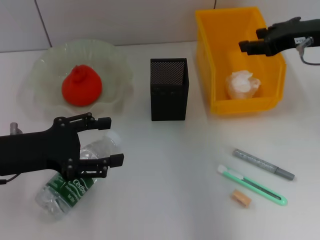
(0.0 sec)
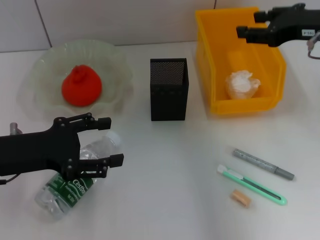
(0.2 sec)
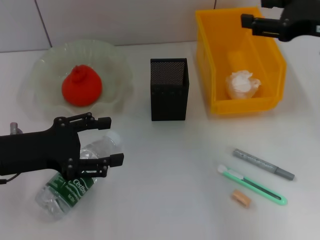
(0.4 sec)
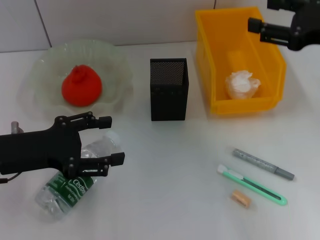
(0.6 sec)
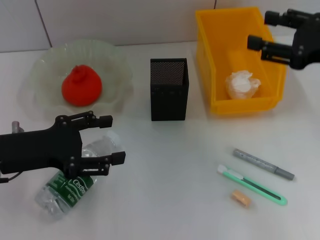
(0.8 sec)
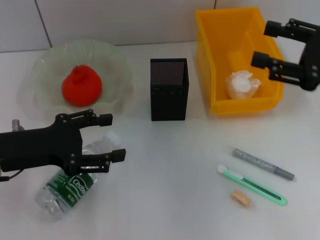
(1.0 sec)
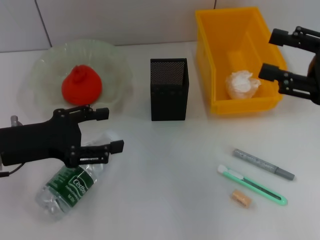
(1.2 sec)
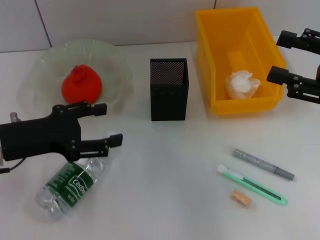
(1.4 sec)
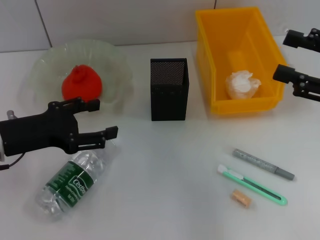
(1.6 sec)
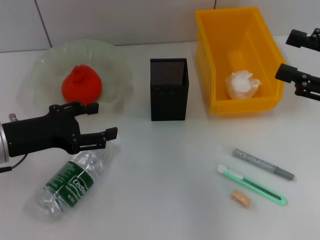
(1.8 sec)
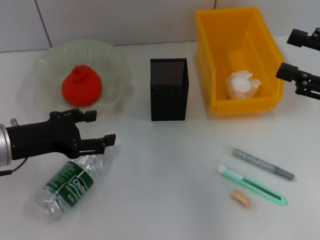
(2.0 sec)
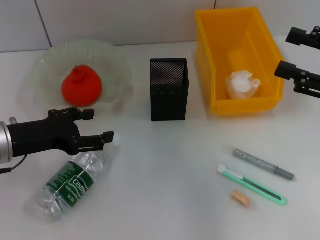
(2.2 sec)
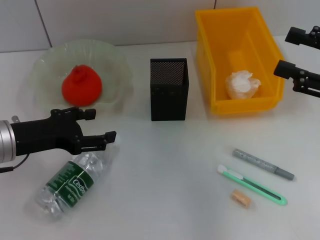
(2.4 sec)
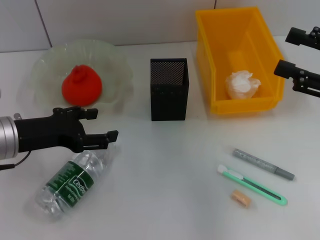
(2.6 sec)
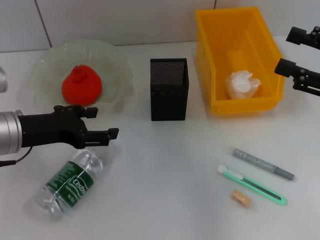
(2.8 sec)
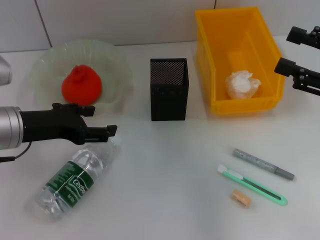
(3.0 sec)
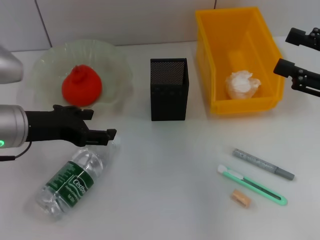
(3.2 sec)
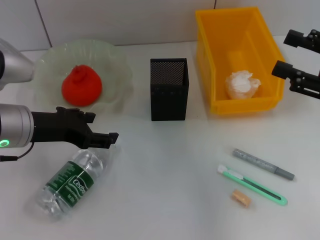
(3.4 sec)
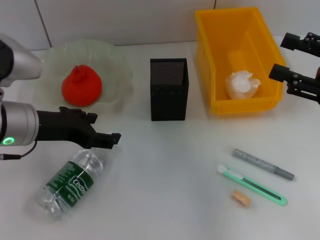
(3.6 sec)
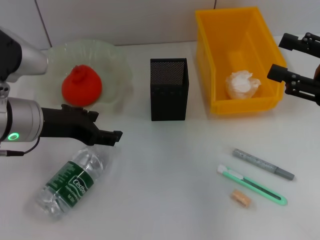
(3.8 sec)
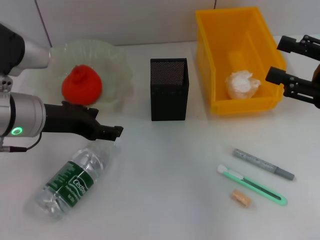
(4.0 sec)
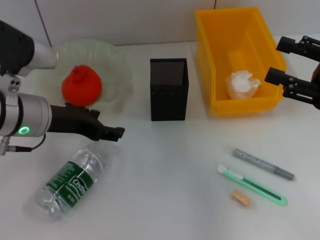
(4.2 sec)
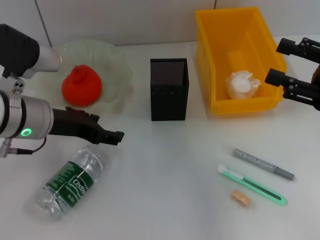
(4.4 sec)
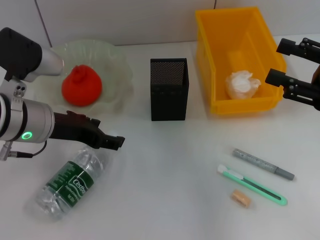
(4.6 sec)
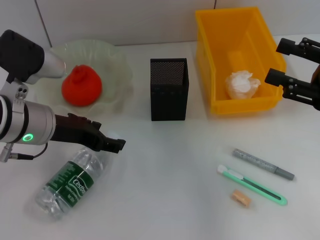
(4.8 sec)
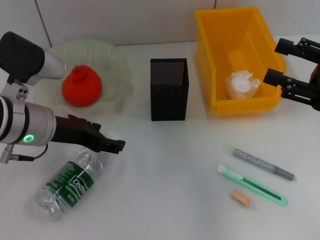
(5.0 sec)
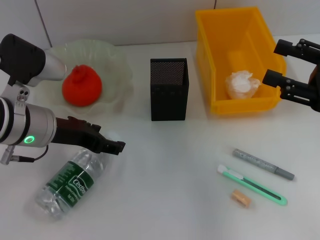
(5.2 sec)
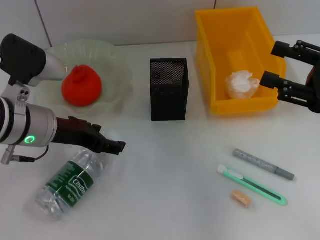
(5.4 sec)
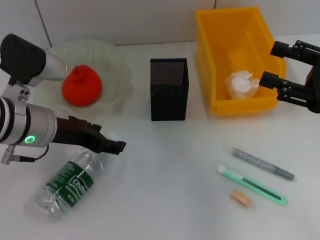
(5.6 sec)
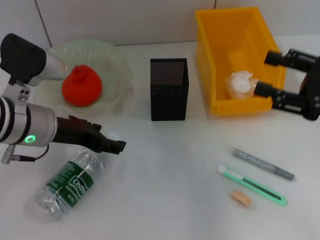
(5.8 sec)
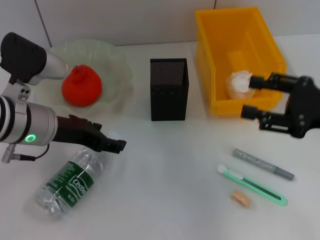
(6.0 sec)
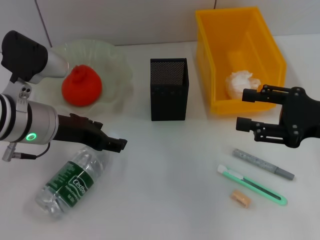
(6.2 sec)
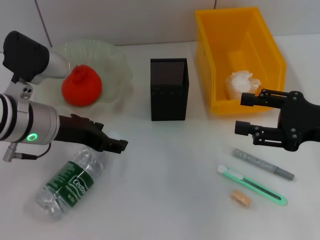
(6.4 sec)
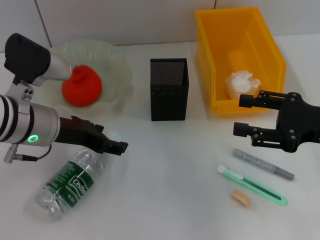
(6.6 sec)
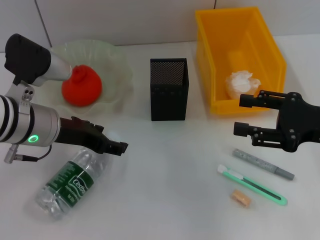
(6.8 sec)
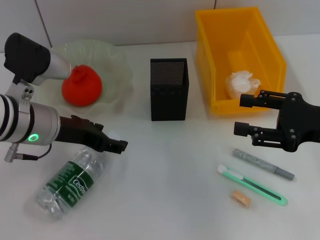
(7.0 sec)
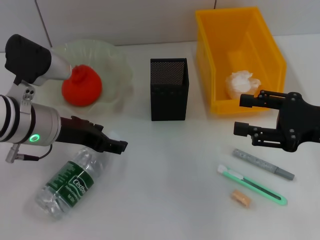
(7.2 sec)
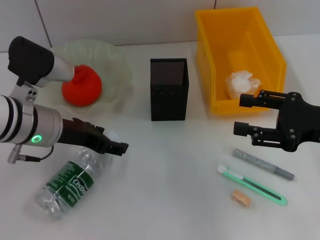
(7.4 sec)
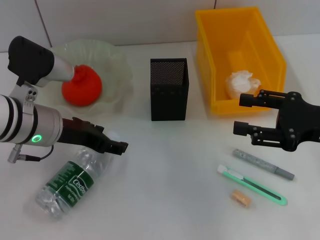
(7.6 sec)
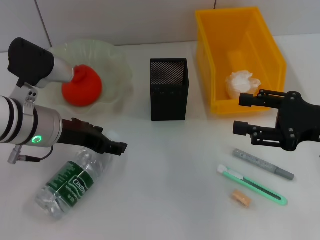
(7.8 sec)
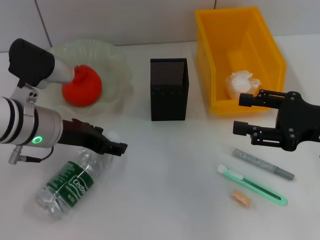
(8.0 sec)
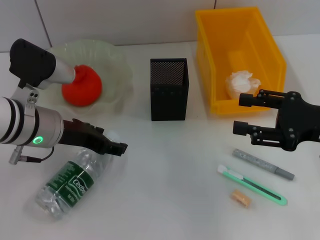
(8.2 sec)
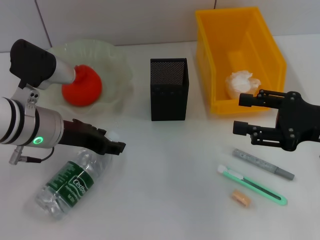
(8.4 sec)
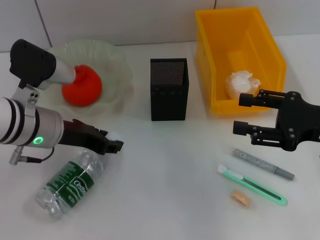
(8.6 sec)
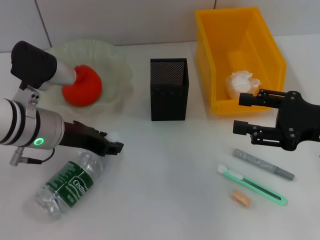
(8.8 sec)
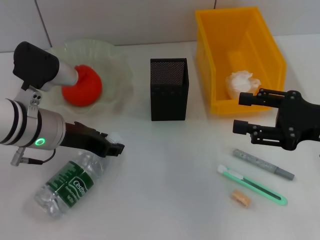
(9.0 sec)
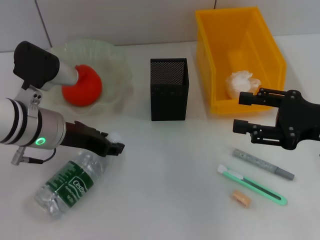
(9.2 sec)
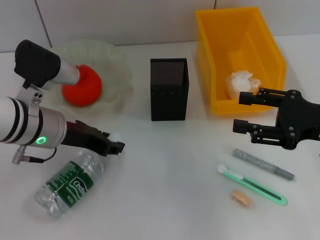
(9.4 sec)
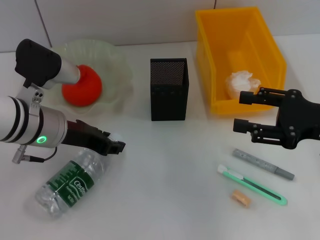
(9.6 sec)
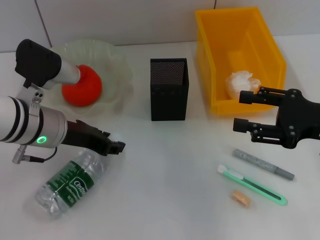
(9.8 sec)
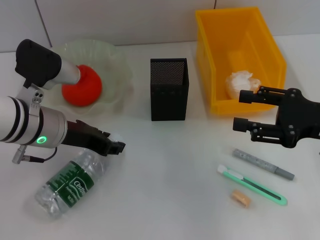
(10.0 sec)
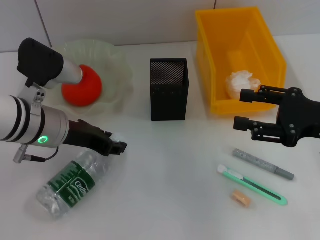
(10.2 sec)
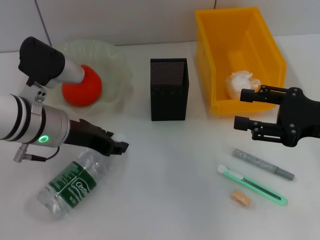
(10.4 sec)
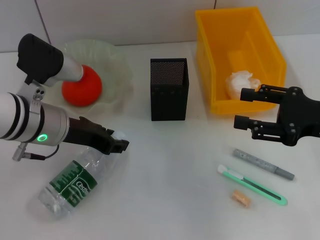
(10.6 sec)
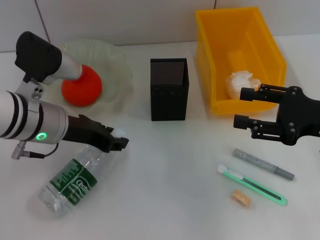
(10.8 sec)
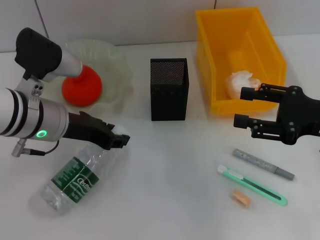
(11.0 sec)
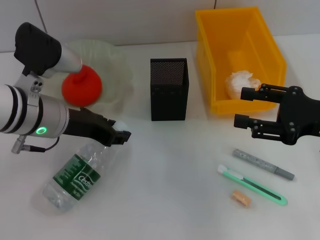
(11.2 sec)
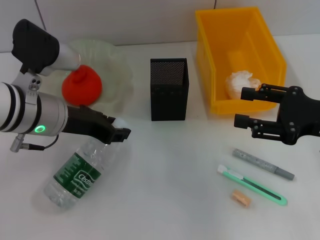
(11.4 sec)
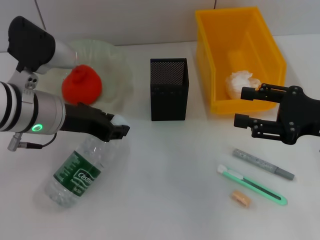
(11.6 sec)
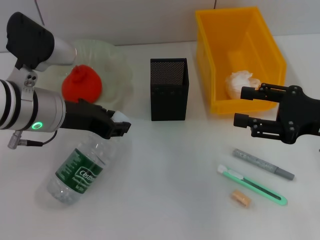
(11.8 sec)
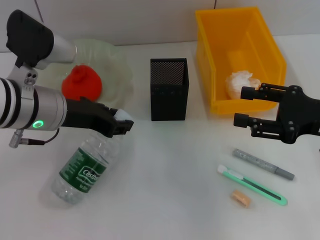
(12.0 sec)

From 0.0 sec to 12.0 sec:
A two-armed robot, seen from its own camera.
Step, from 0.2 sec to 9.8 sec: Grab the water bottle with the left hand.
From 0.0 sec to 1.6 sec: The right gripper is displaced backward and to the right by roughly 15 cm.
From 1.6 sec to 3.0 sec: There are only small adjustments of the grippers.
From 3.0 sec to 4.4 sec: The left gripper changes place by about 5 cm.
From 4.4 sec to 7.6 sec: There are only small adjustments of the grippers.
From 7.6 sec to 9.0 sec: The left gripper closes.
From 9.0 sec to 10.4 sec: The two grippers keep their place.
From 10.4 sec to 12.0 sec: There are only small adjustments of the grippers.

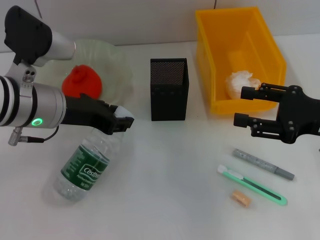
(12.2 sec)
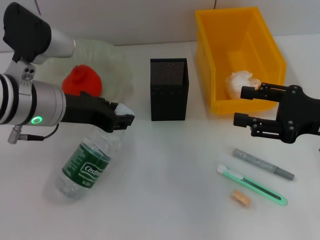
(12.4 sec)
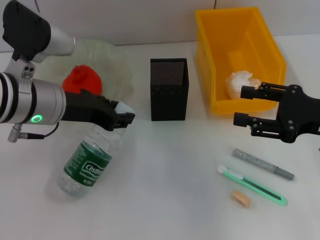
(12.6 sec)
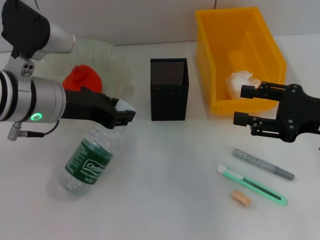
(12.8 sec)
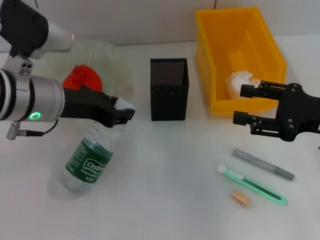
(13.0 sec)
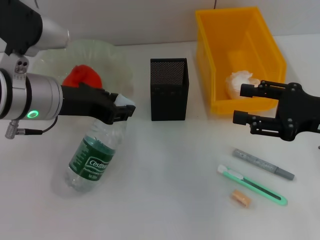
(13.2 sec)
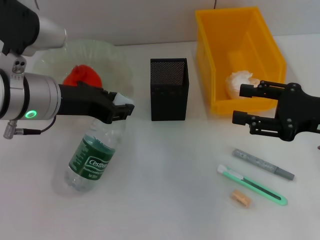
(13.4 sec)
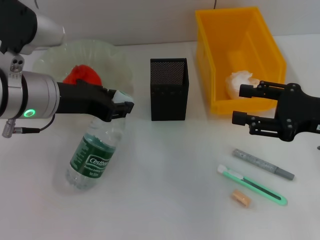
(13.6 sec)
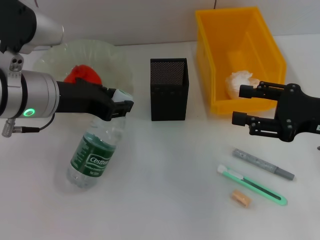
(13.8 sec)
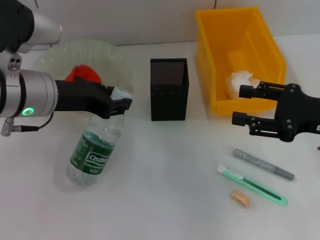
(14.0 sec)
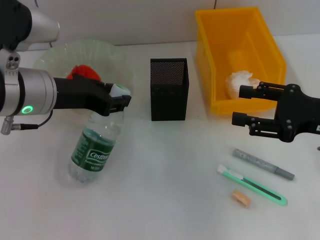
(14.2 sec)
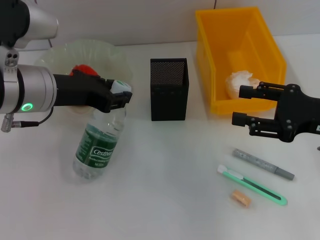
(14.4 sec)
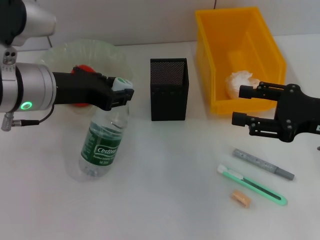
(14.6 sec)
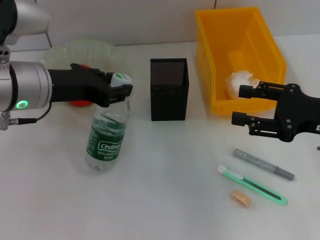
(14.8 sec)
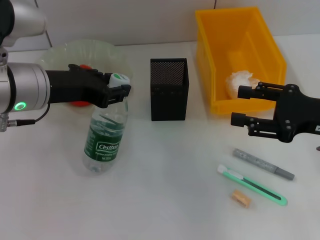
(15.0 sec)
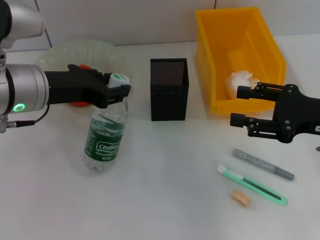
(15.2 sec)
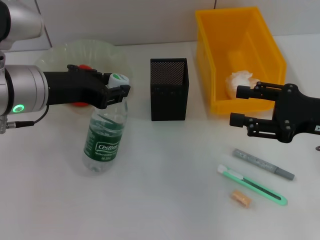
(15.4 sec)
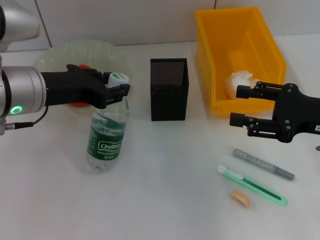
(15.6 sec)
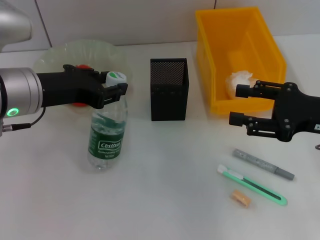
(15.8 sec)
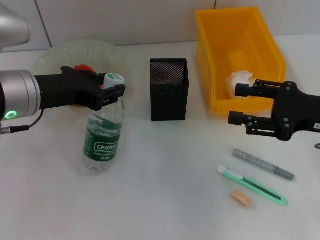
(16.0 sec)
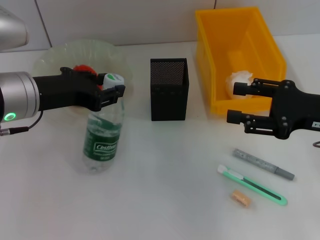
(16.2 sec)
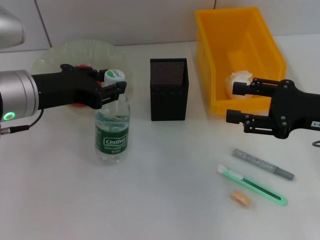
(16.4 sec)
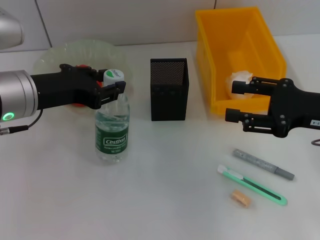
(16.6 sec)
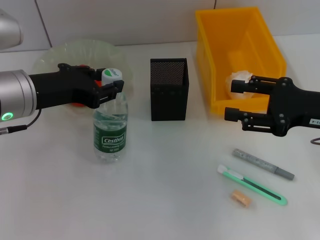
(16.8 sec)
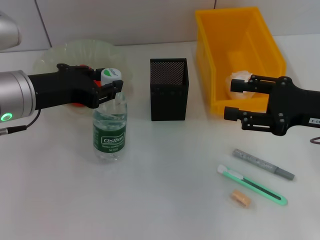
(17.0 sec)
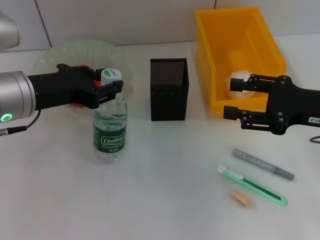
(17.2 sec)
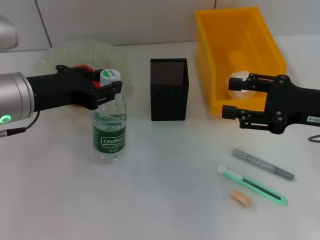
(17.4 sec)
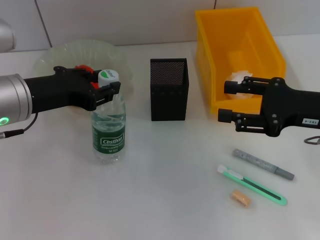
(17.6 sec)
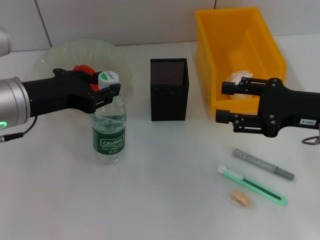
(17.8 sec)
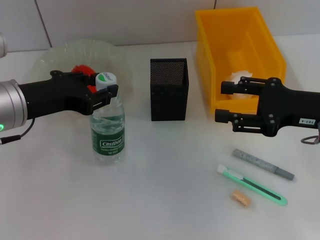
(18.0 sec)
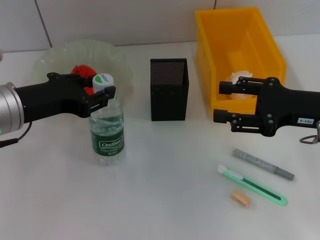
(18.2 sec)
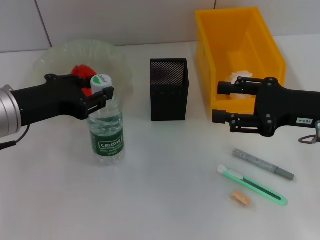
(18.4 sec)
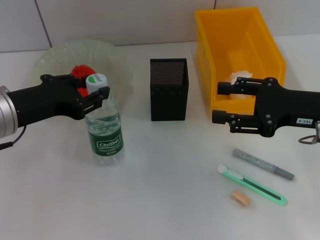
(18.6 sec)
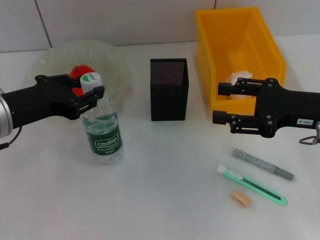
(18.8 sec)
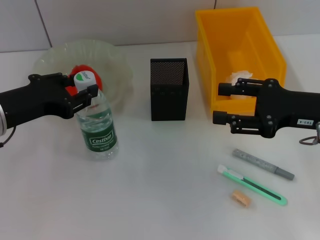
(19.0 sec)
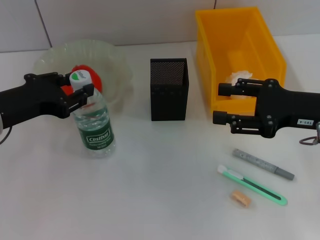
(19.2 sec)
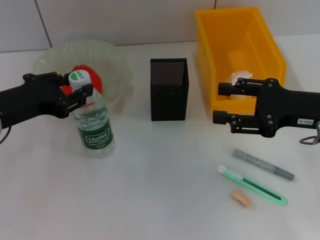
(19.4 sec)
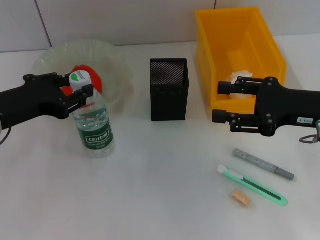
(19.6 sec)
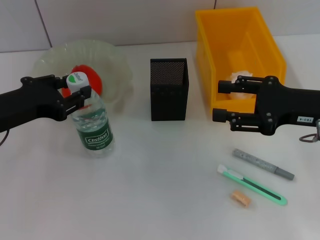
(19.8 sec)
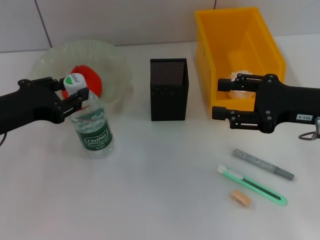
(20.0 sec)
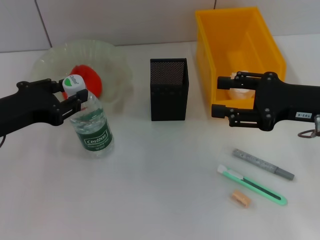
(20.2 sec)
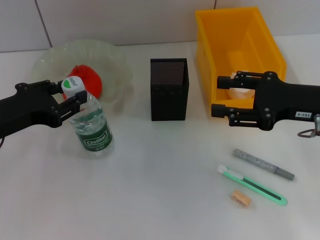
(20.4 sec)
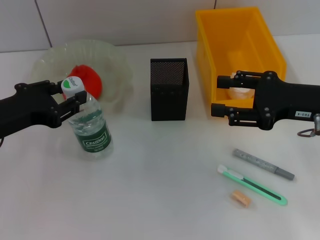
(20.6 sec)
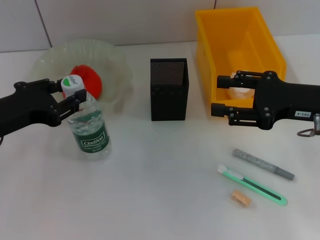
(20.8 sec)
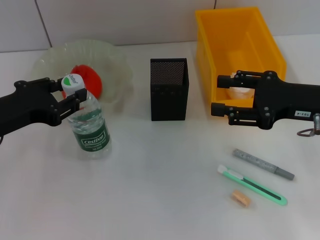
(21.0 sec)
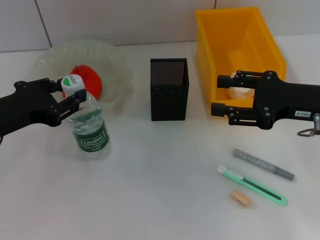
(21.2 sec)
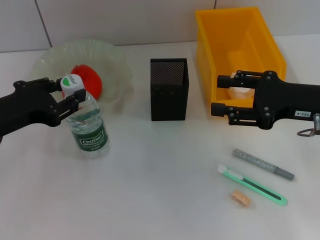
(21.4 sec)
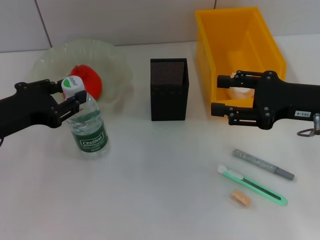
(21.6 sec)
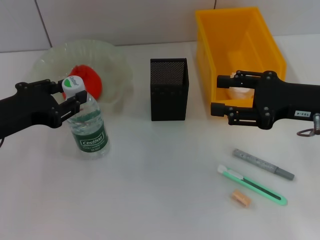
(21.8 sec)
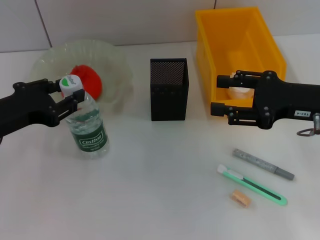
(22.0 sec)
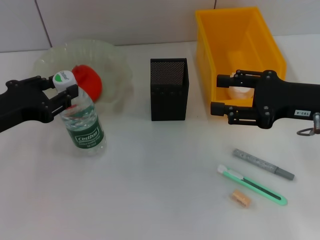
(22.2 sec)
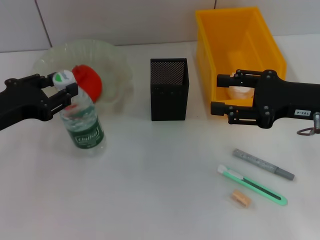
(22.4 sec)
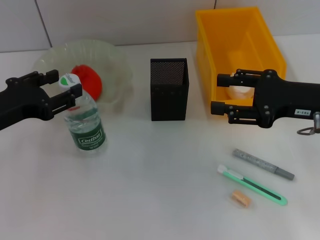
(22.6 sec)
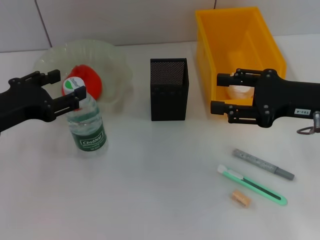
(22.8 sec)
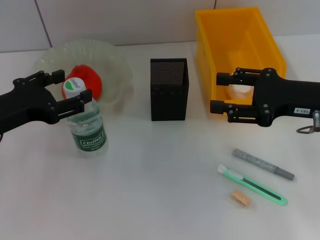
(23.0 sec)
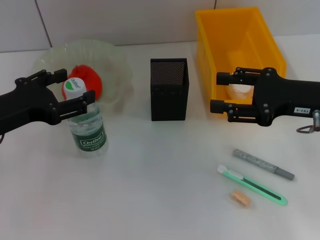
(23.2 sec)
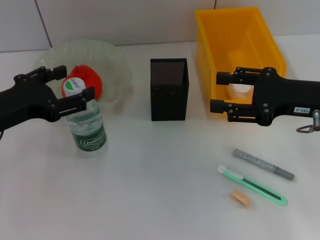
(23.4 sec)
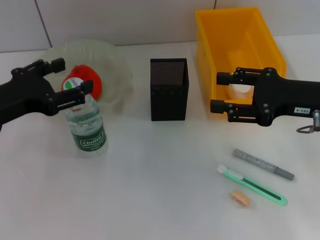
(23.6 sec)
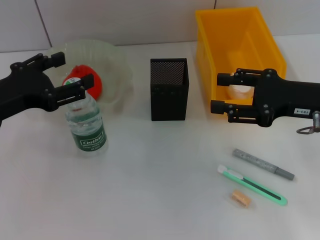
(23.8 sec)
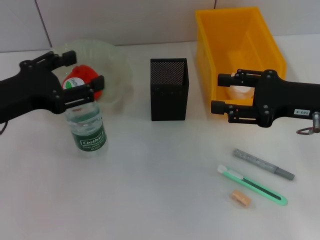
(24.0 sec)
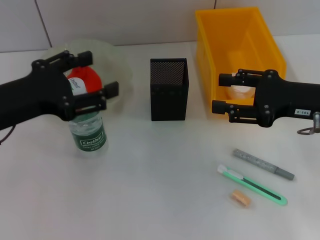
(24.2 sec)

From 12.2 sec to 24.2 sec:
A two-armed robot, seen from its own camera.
Step, from 12.2 sec to 23.4 sec: Place the water bottle on the table with the left hand.
From 12.2 sec to 16.6 sec: The grippers make only small movements.
From 16.6 sec to 19.8 sec: The grippers move only a little.
From 19.8 sec to 21.2 sec: The two grippers keep their place.
From 21.2 sec to 22.6 sec: The grippers make only small movements.
From 22.6 sec to 24.2 sec: The left gripper opens its fingers.
